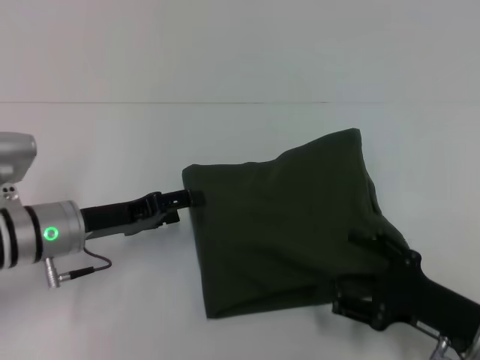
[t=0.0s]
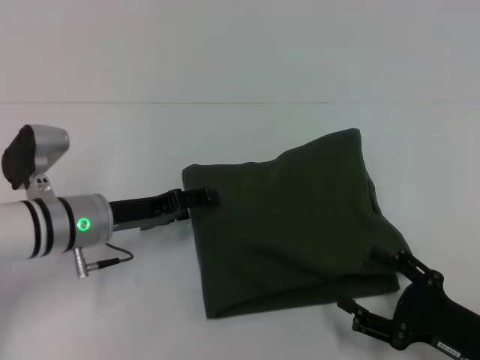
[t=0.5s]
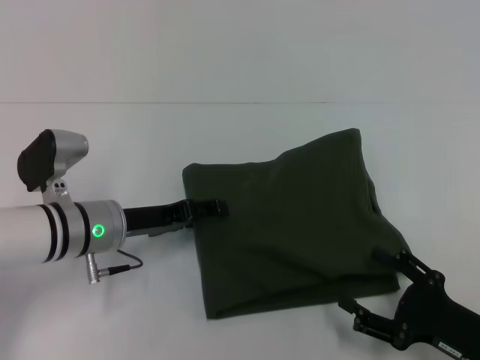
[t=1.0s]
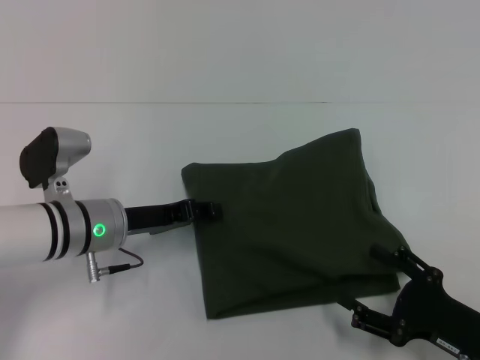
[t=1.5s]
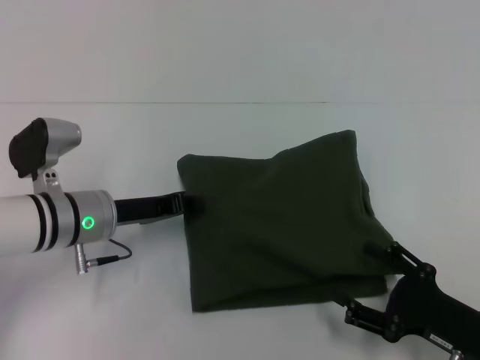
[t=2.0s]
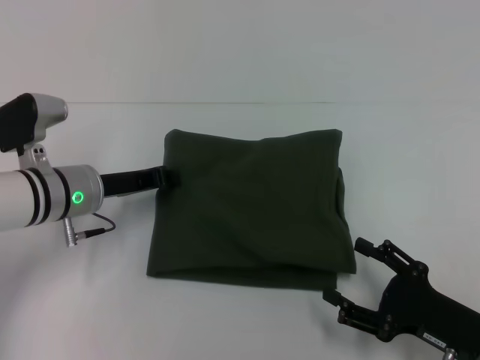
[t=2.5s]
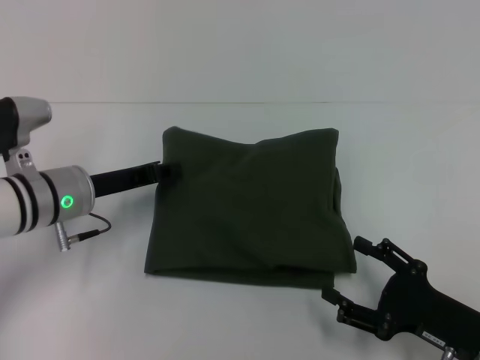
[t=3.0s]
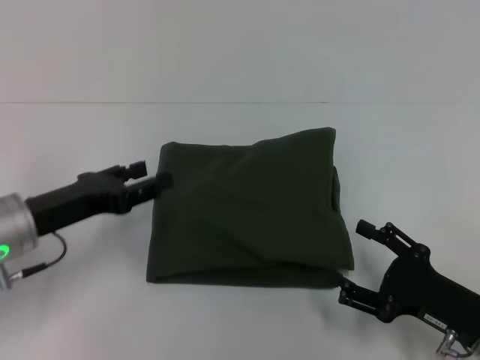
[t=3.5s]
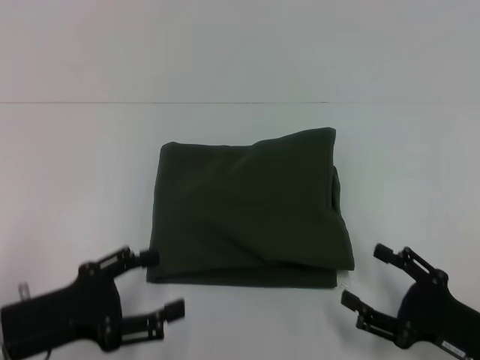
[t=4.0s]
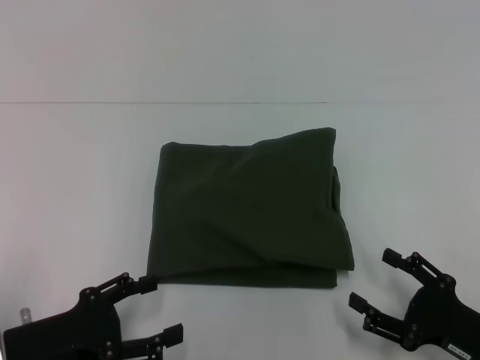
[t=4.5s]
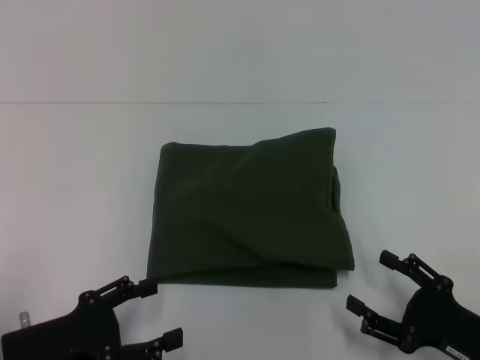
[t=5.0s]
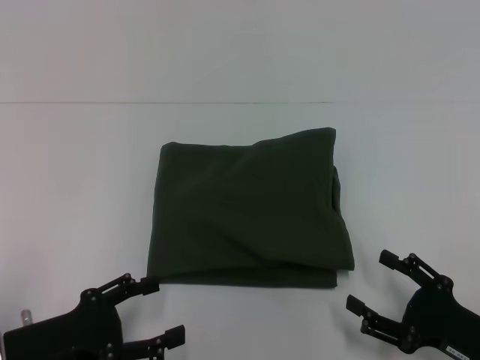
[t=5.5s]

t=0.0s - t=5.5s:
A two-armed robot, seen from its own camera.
t=0.0s - t=2.0s: The left gripper closes its fingers.
t=2.0s - t=3.5s: The left gripper moves to the left and backward, about 10 cm, and opens up.
t=3.5s - t=5.5s: The left gripper heads backward, covering approximately 10 cm, and opens up.

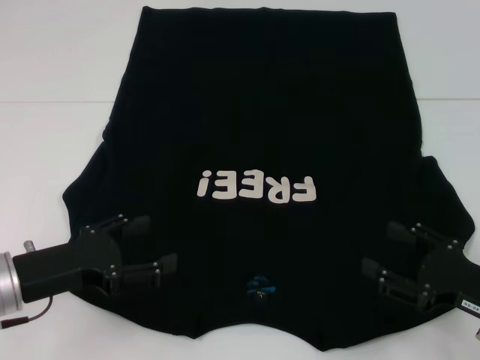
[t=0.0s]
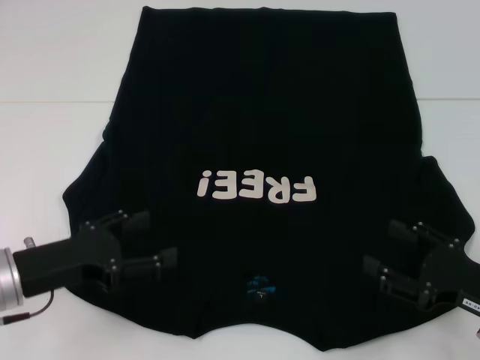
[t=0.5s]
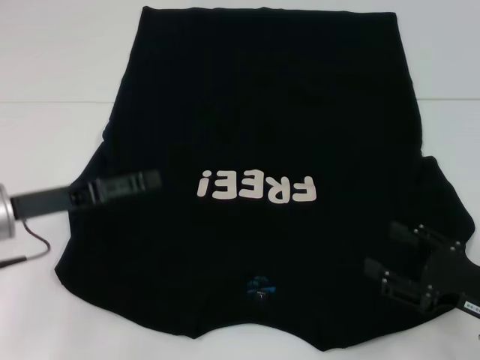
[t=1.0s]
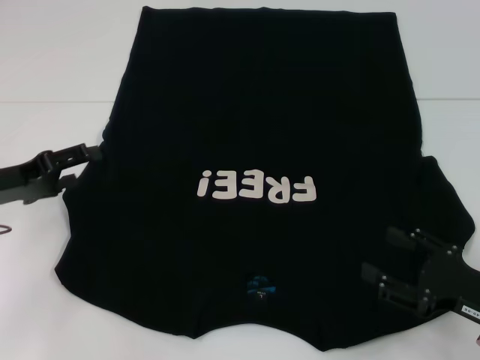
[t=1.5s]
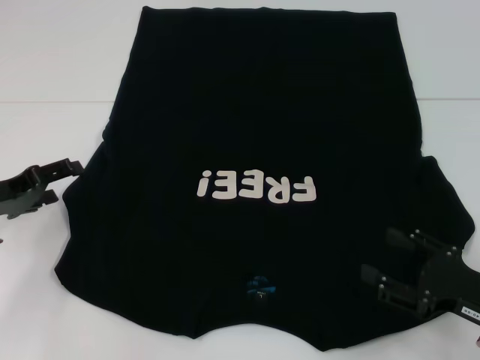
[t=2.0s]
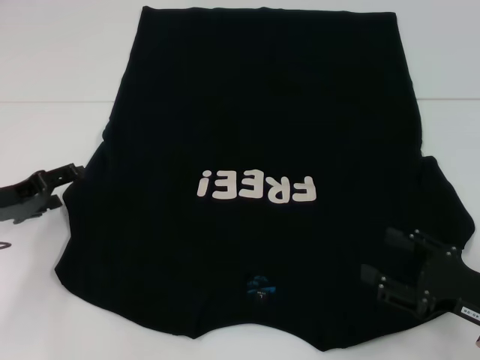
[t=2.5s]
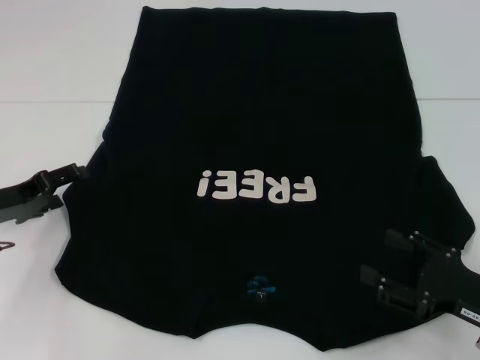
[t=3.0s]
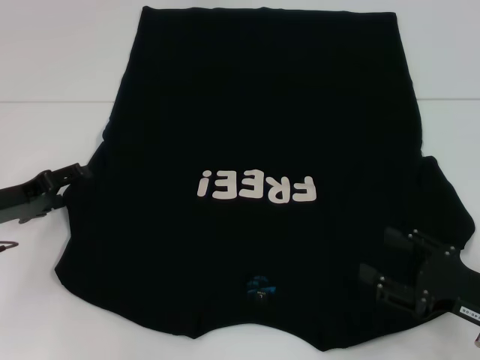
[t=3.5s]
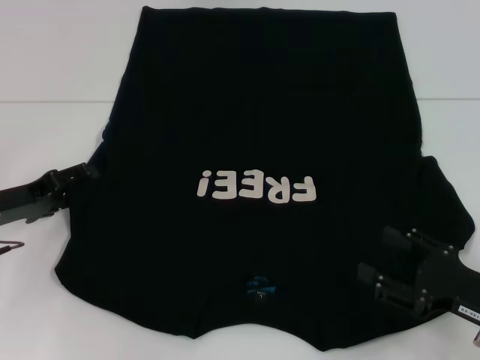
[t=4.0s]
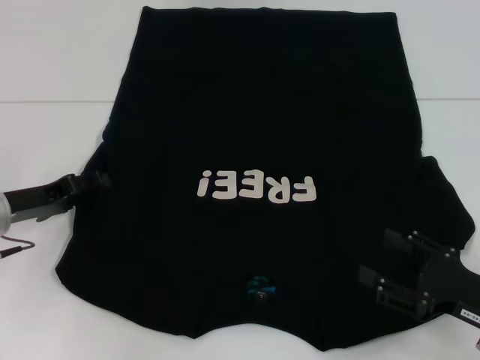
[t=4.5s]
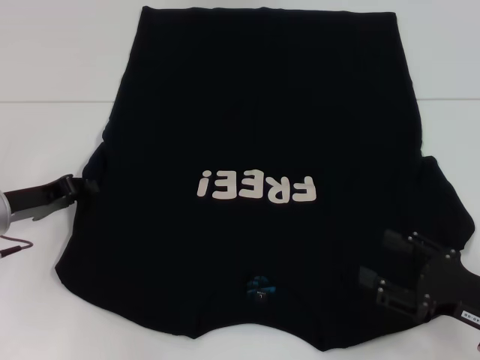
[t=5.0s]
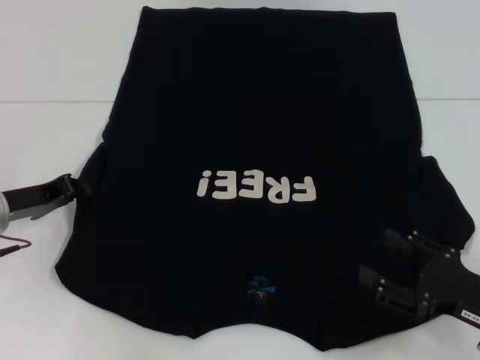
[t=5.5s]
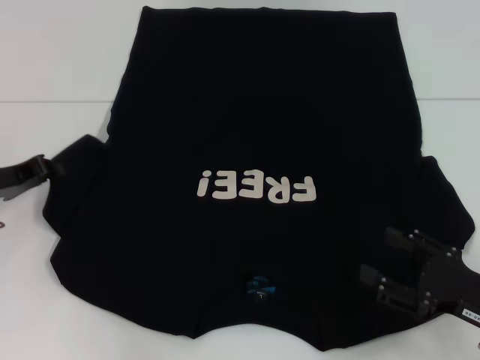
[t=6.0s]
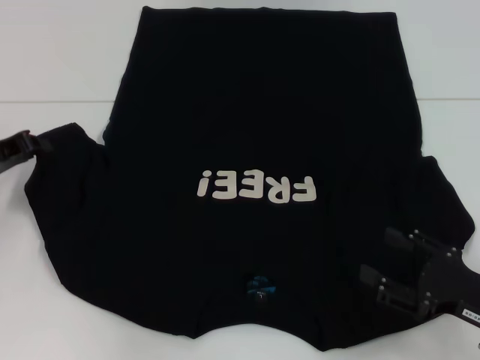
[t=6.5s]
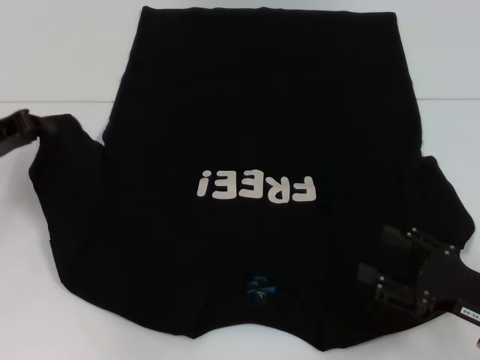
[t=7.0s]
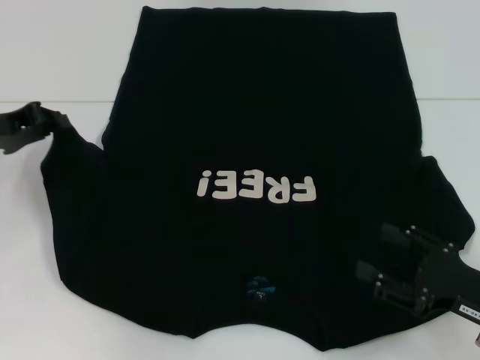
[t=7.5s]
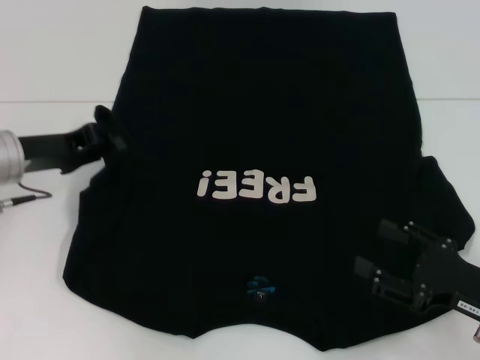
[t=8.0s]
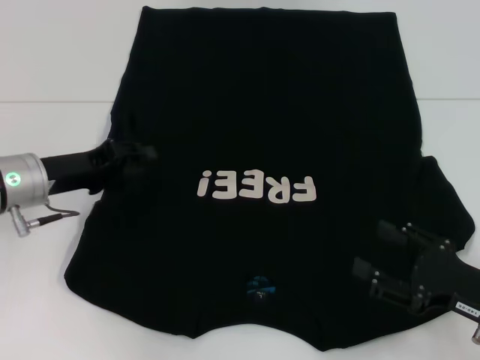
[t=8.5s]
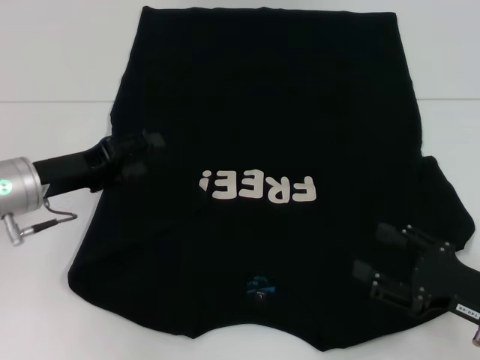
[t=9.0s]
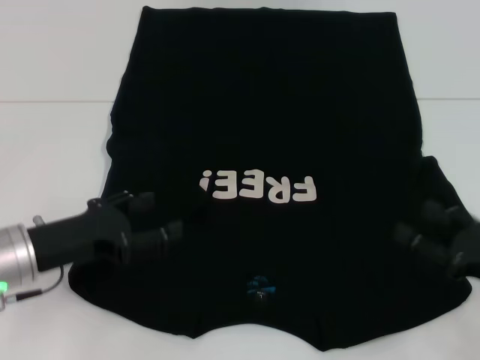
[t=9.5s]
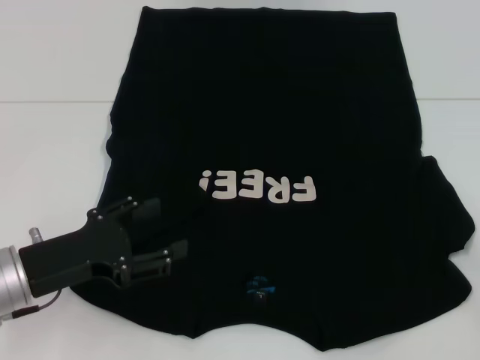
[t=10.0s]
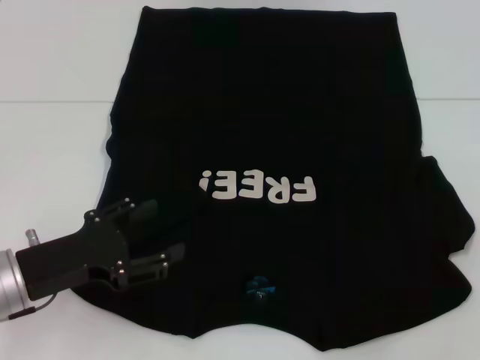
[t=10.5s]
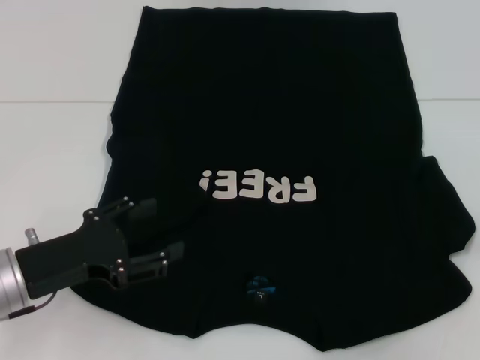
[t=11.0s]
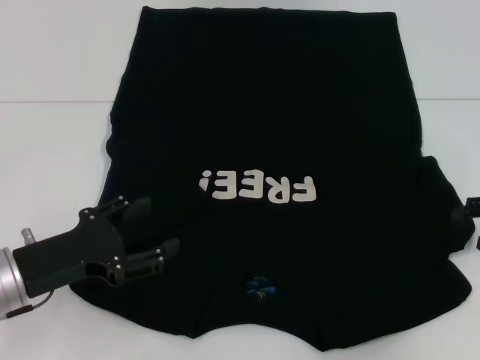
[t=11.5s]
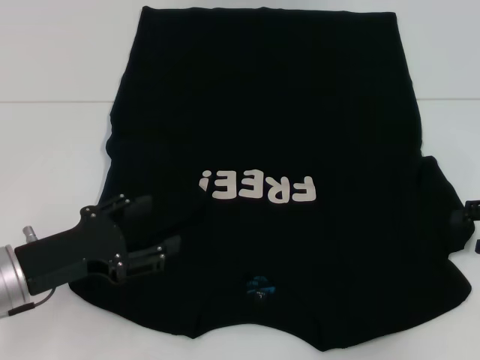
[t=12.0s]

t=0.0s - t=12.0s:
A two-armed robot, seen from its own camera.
Step, t=0.0s - t=8.5s: Fold the bottom left sleeve with your left hand.
t=0.0s - t=2.0s: The left gripper shifts approximately 10 cm forward and to the left.
t=2.0s - t=4.0s: The grippers make only small movements.
t=4.0s - t=6.0s: The left gripper closes.
t=6.0s - t=8.0s: The left gripper moves some 5 cm.
t=8.0s - t=10.0s: The left gripper travels backward by roughly 10 cm, and opens its fingers. The right gripper goes approximately 15 cm to the right and upward.

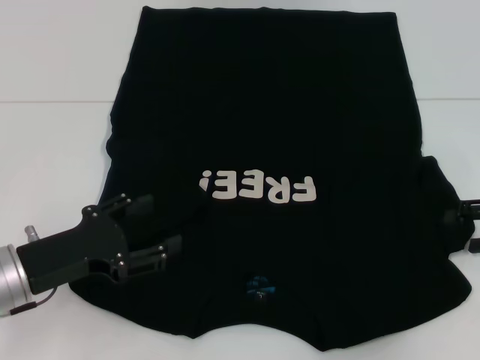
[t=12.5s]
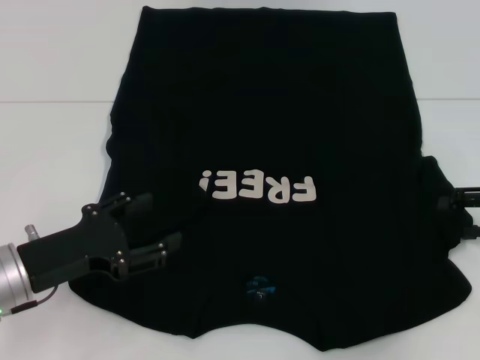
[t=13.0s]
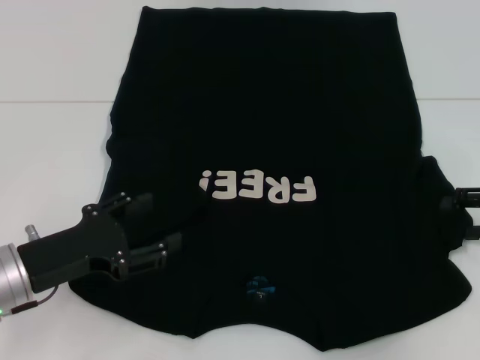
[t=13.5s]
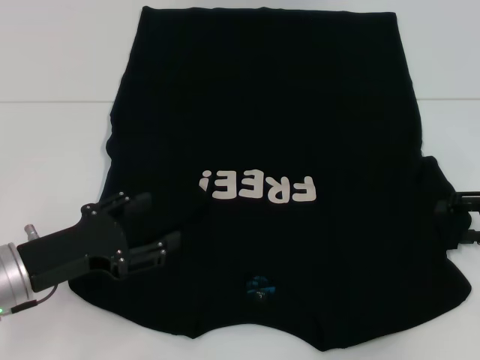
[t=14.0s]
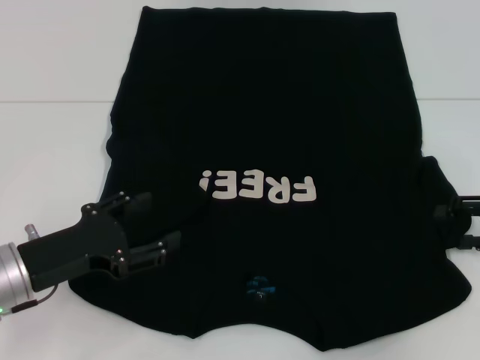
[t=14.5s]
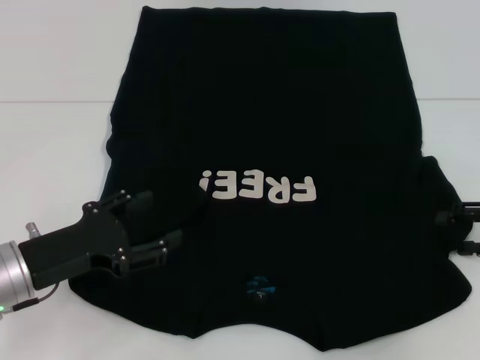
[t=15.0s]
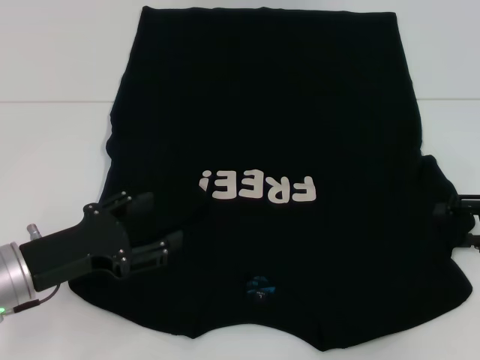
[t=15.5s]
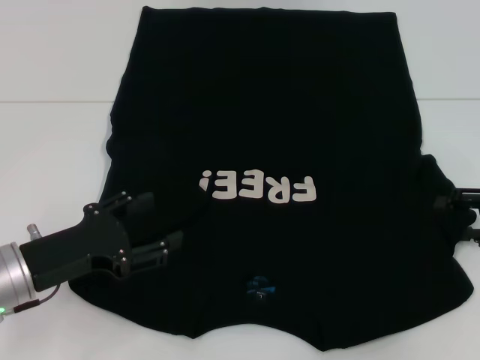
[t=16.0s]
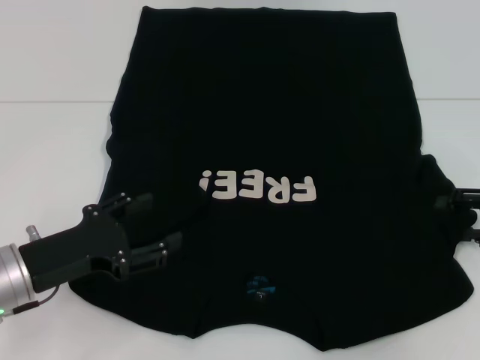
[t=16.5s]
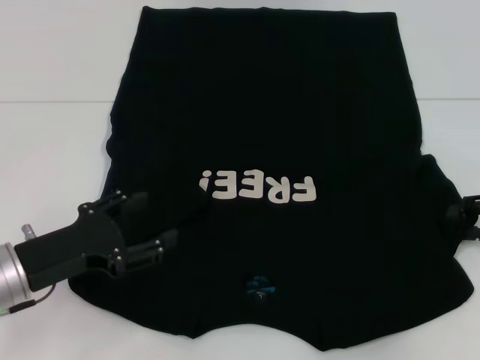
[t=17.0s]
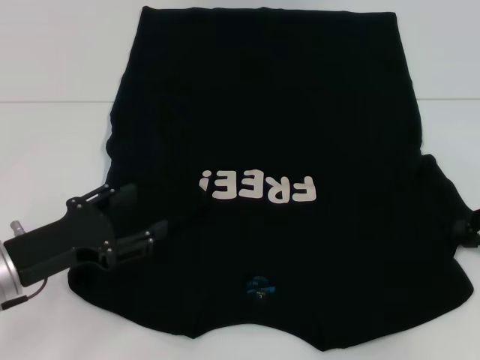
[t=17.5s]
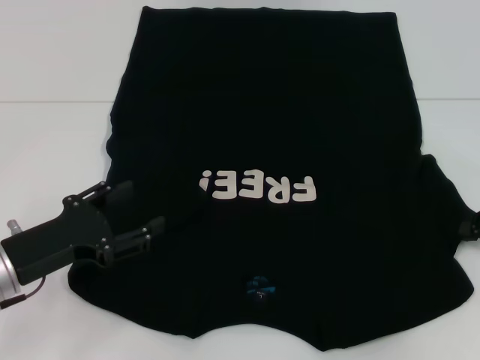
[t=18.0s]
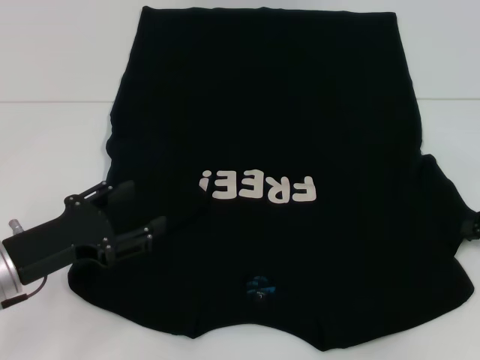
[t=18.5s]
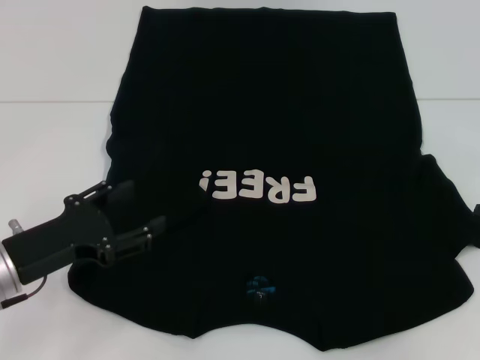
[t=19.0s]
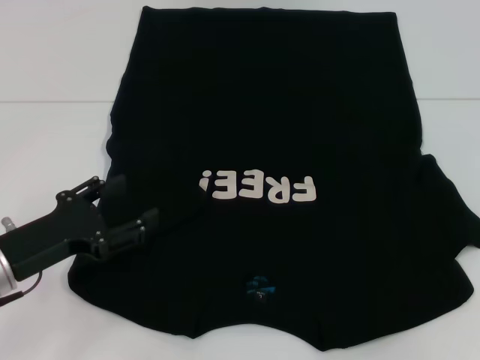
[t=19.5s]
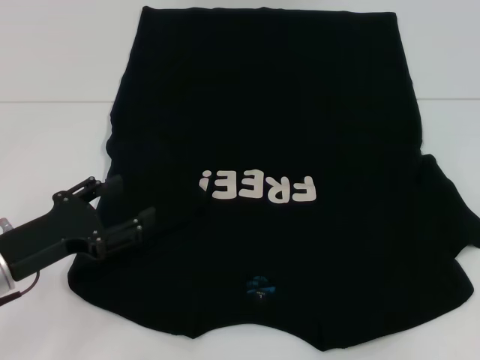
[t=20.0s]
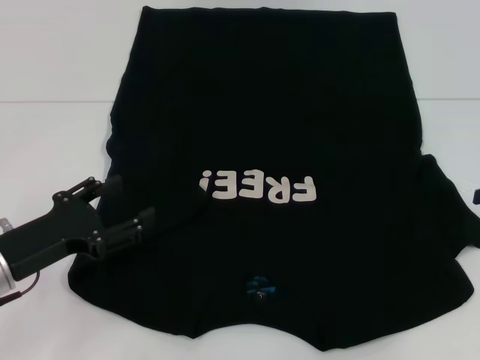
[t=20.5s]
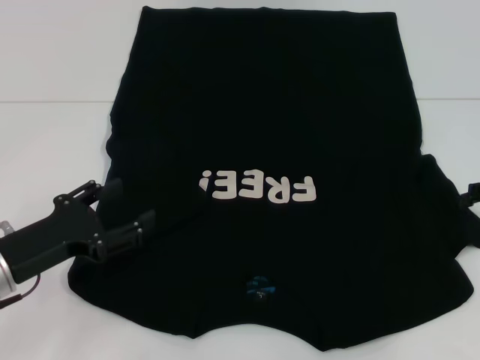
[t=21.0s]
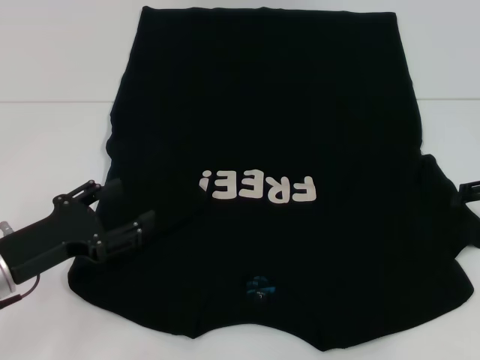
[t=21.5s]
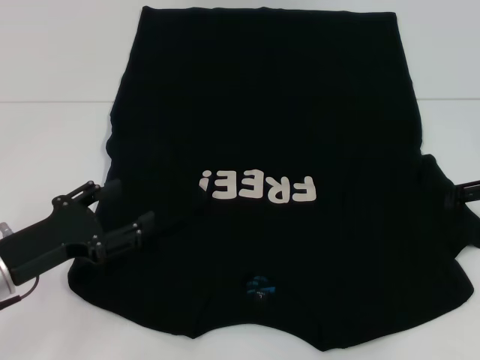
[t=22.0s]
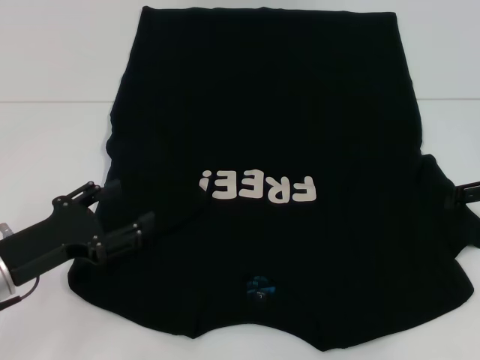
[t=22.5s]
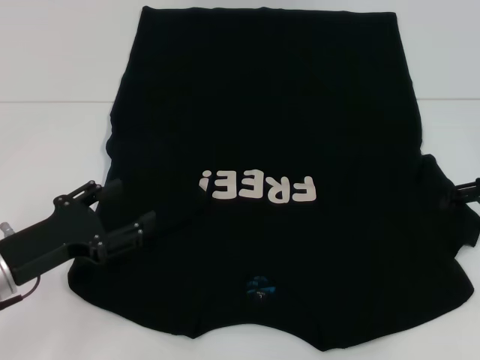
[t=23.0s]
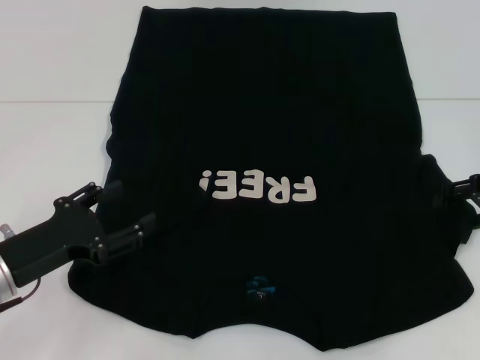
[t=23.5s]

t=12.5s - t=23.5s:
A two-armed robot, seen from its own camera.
t=12.5s - t=14.5s: The two grippers keep their place.
t=14.5s - t=16.0s: The two grippers keep their place.
t=21.5s - t=23.5s: The grippers move only a little.
